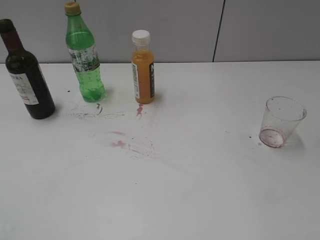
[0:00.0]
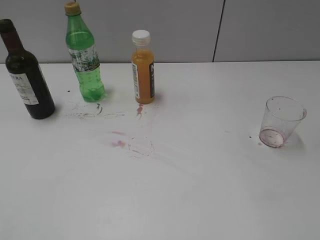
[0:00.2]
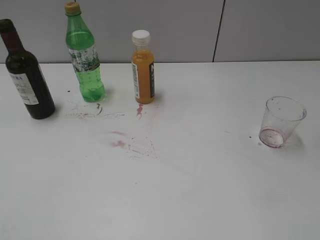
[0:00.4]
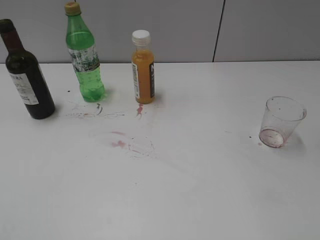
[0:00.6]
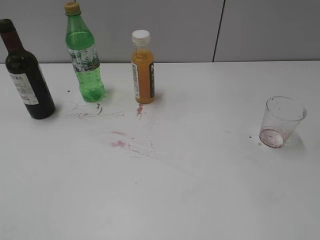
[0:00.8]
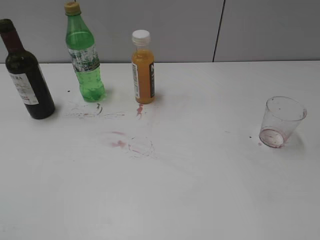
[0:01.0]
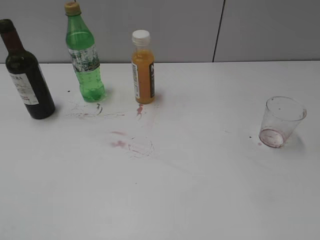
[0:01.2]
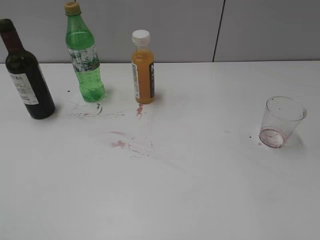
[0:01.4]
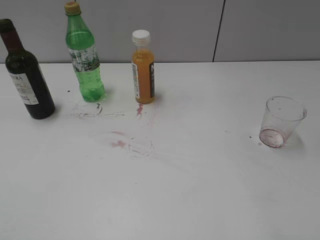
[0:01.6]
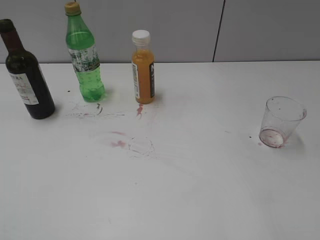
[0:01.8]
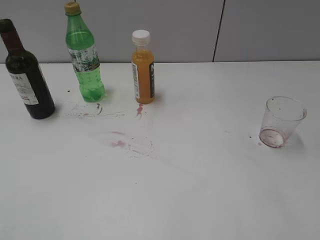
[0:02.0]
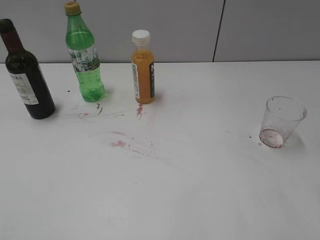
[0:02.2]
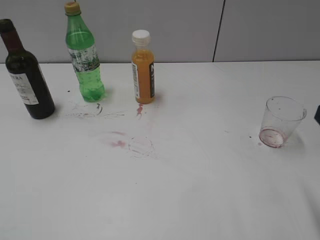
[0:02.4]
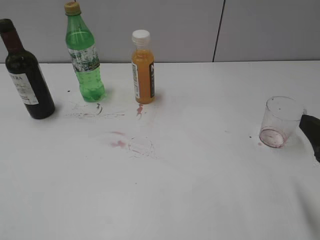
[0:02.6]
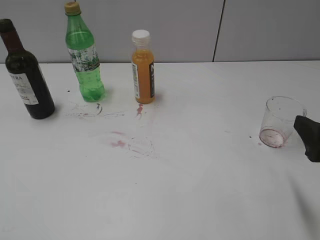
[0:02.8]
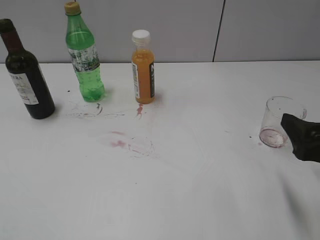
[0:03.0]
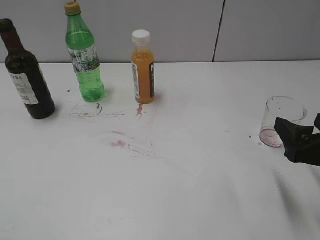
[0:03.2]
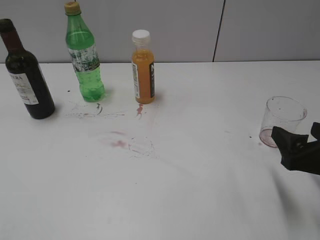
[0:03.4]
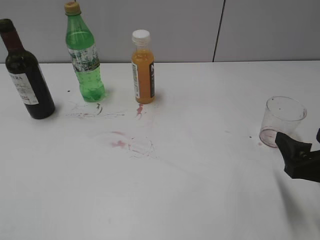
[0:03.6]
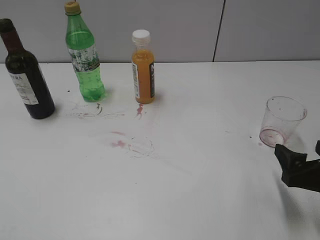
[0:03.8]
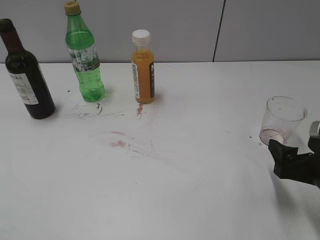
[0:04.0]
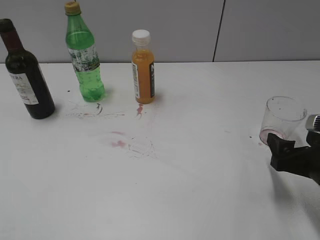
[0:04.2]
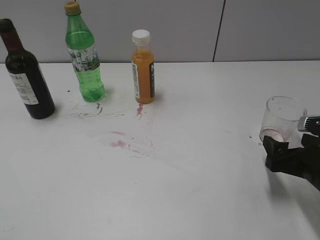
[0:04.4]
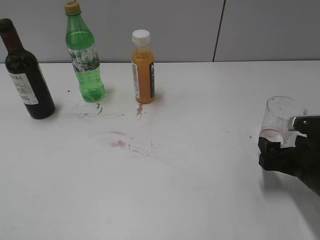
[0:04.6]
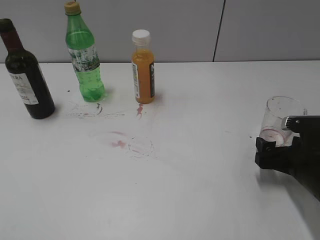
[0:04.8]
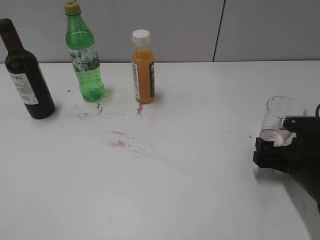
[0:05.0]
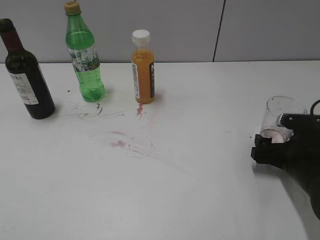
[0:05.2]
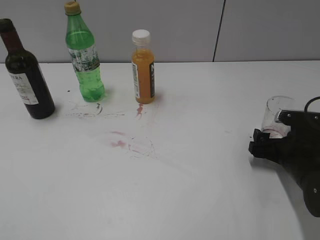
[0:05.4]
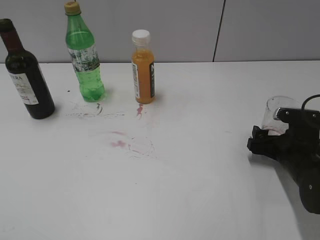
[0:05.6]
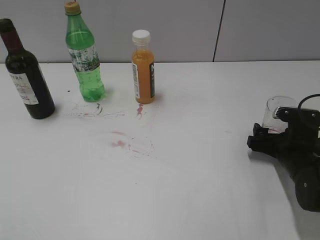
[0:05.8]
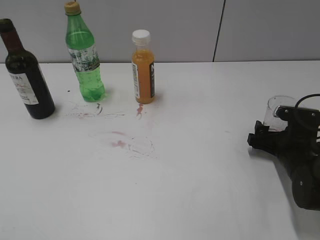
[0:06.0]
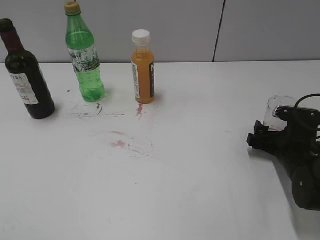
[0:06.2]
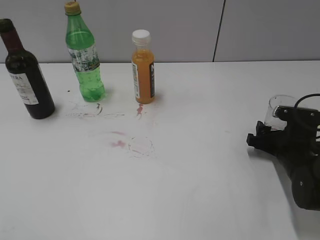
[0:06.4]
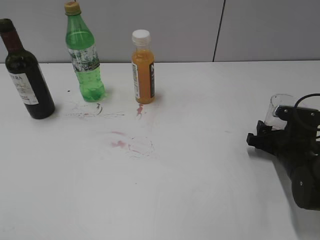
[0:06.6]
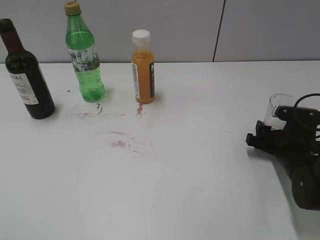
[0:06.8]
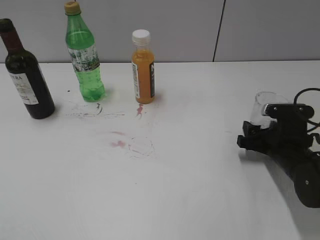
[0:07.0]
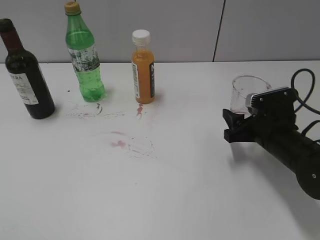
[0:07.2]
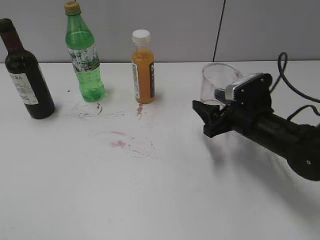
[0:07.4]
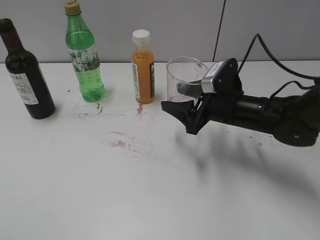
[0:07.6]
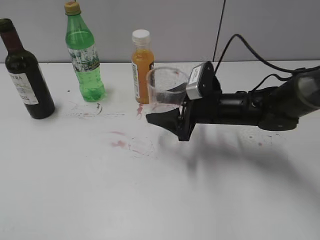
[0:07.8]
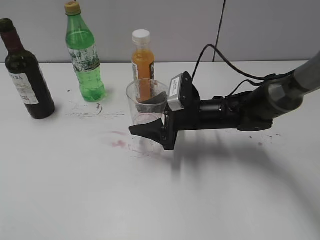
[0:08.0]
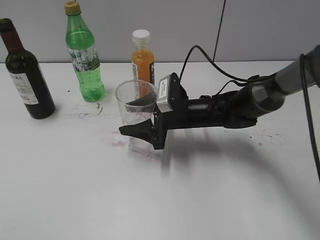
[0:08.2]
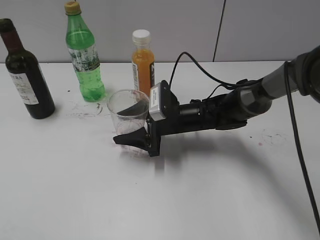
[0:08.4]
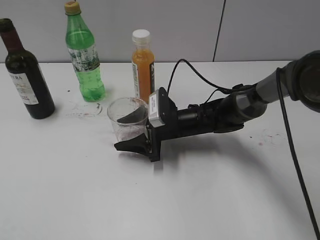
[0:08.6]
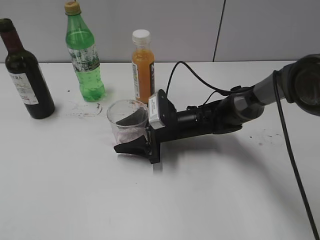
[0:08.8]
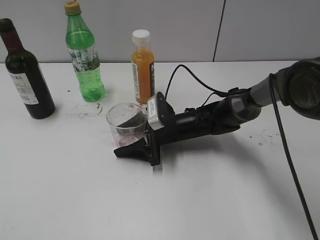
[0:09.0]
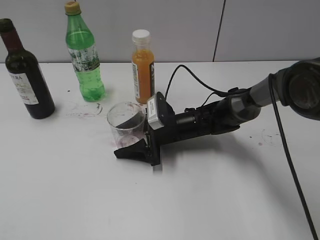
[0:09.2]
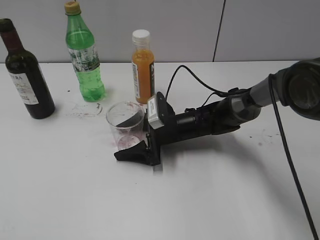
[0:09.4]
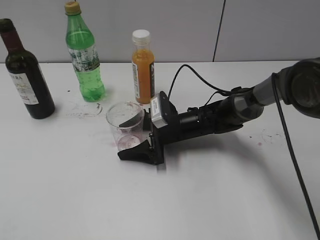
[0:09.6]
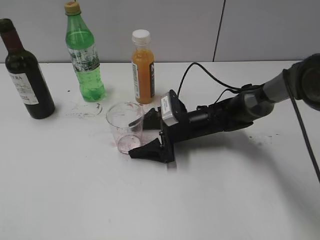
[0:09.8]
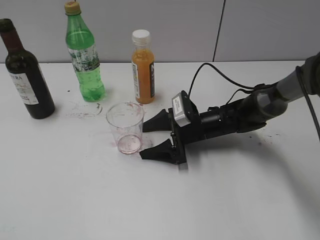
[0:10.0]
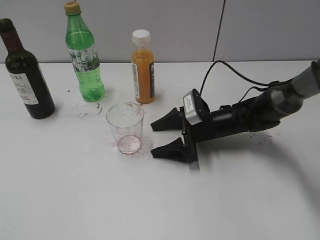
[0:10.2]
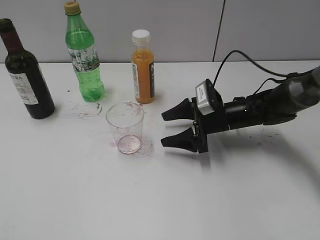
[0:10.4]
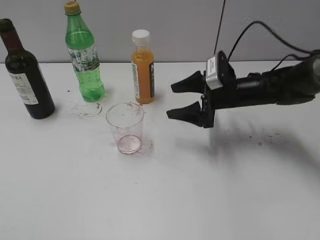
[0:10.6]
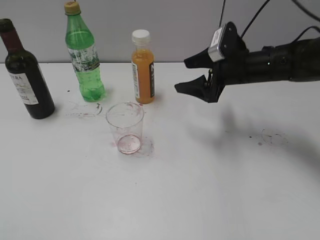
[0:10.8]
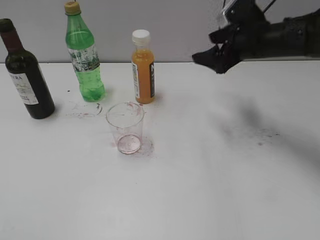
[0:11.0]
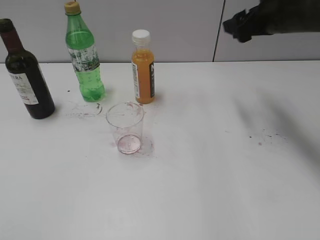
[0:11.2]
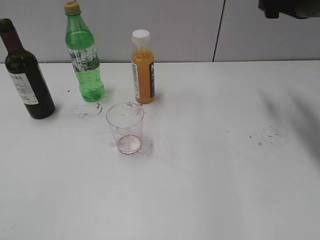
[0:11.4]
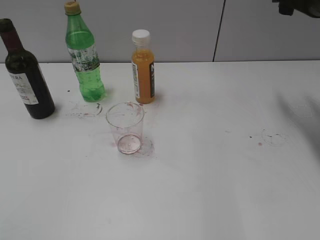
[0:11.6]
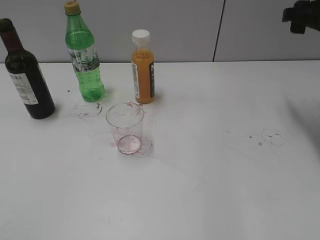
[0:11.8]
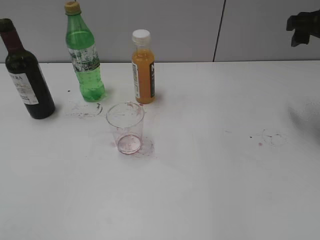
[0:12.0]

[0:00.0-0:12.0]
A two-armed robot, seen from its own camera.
Step, 0:01.0 to 0:06.6: Grasp the transparent cup with right gripper.
Step, 0:07.0 to 0:10.0: Place the transparent cup on the table with right gripper.
0:01.6 to 0:03.0: The right gripper is displaced downward and forward by approximately 15 cm.
0:03.0 to 0:04.4: The right gripper heads downward, covering some 10 cm.
0:04.4 to 0:06.0: The right gripper goes about 10 cm forward and downward.
0:06.0 to 0:07.6: The right gripper travels to the left and upward by about 15 cm, and closes its fingers.
0:07.6 to 0:09.0: The right gripper travels to the left and downward by some 15 cm.
0:09.0 to 0:10.4: The right gripper shifts some 10 cm to the right, and opens its fingers.
0:10.4 to 0:12.0: The right gripper is displaced upward and to the right by approximately 25 cm, and closes up.

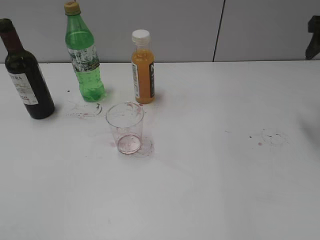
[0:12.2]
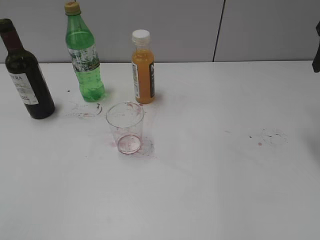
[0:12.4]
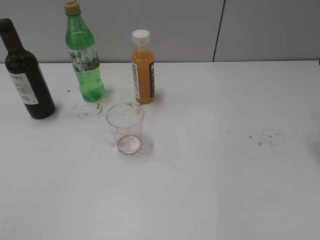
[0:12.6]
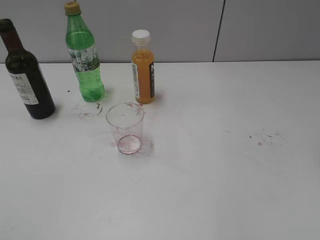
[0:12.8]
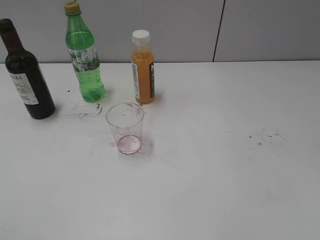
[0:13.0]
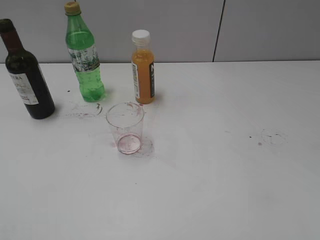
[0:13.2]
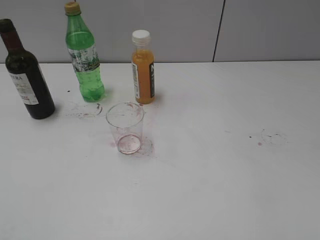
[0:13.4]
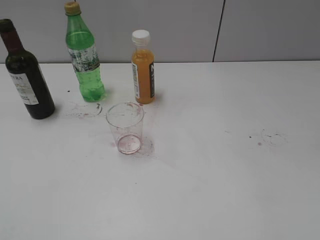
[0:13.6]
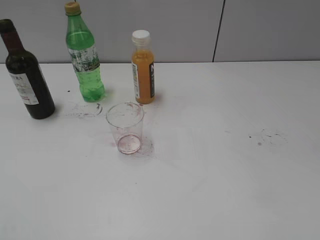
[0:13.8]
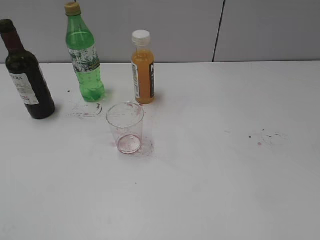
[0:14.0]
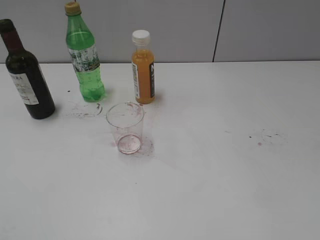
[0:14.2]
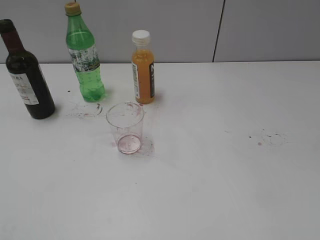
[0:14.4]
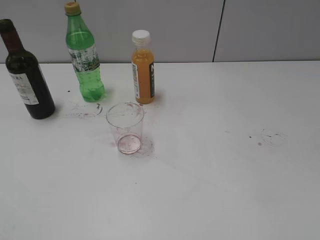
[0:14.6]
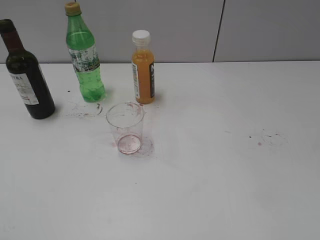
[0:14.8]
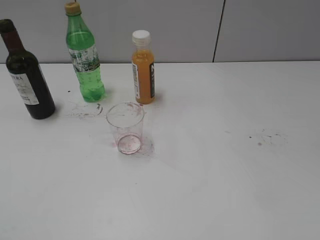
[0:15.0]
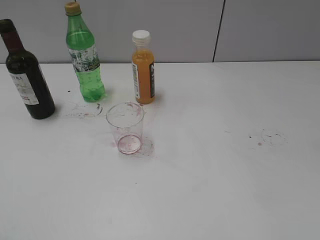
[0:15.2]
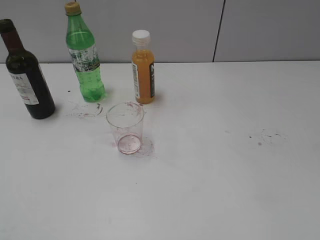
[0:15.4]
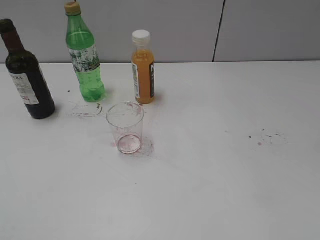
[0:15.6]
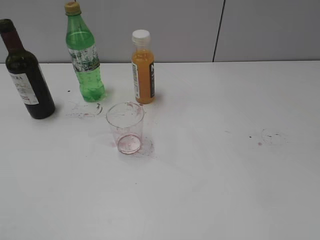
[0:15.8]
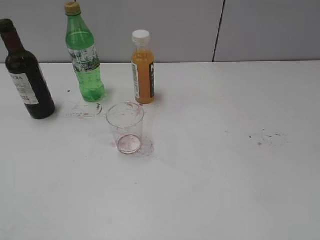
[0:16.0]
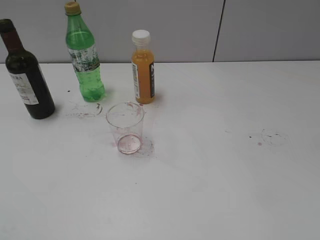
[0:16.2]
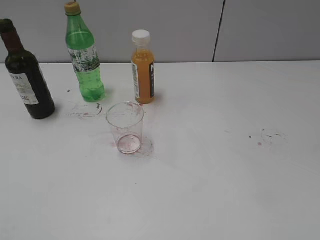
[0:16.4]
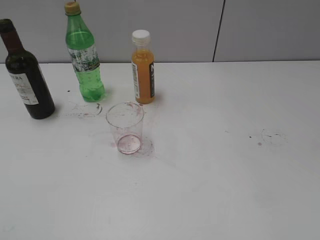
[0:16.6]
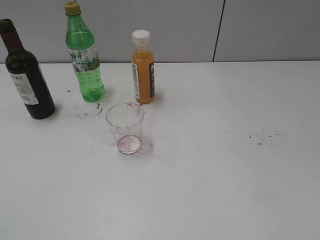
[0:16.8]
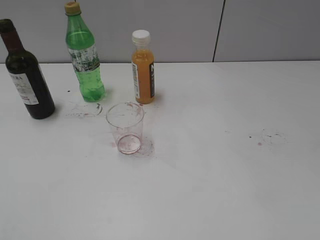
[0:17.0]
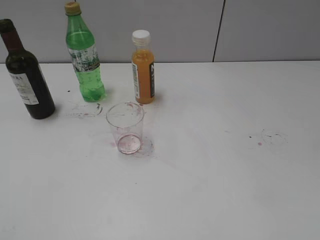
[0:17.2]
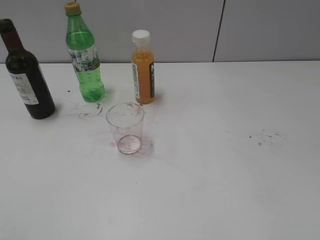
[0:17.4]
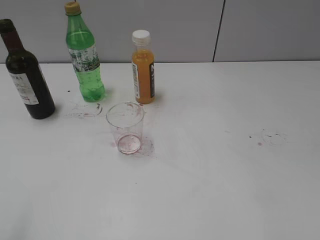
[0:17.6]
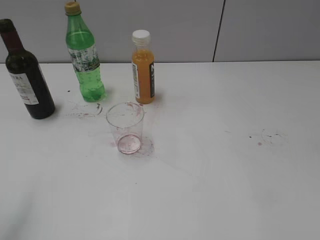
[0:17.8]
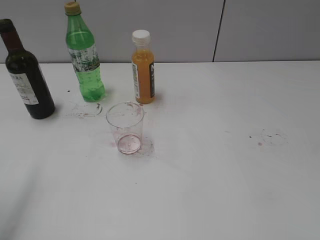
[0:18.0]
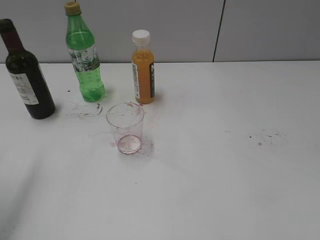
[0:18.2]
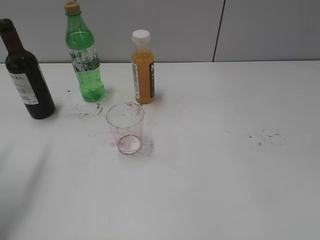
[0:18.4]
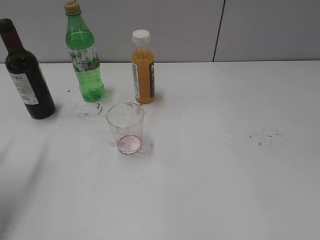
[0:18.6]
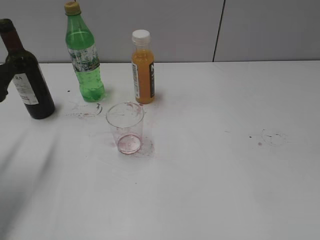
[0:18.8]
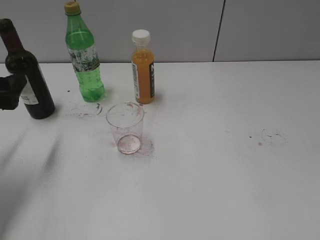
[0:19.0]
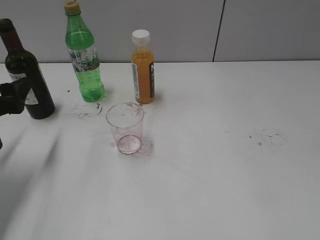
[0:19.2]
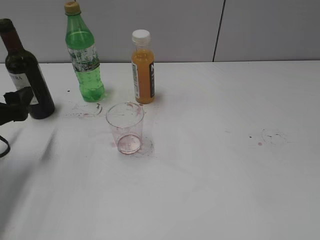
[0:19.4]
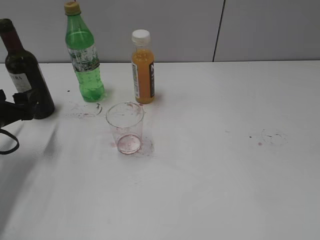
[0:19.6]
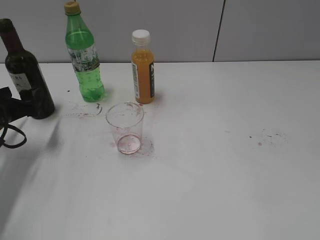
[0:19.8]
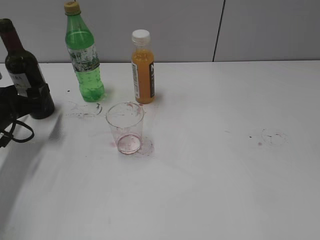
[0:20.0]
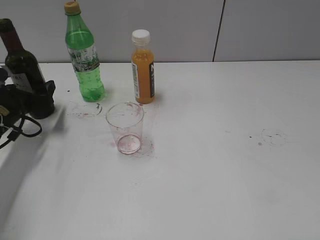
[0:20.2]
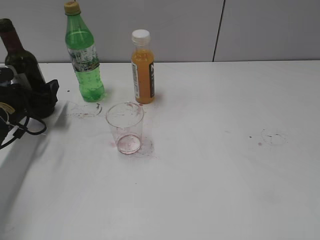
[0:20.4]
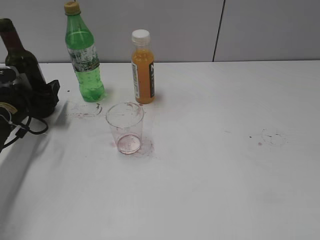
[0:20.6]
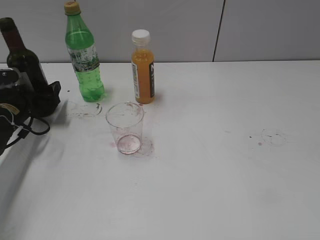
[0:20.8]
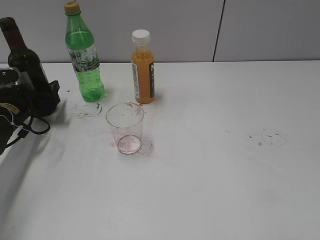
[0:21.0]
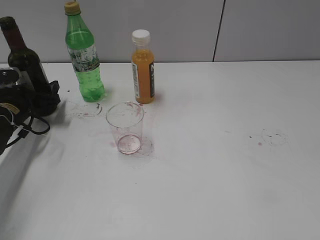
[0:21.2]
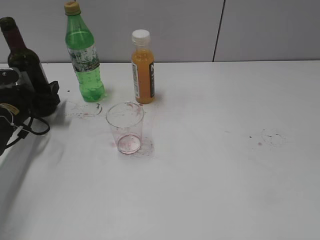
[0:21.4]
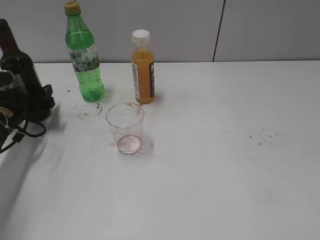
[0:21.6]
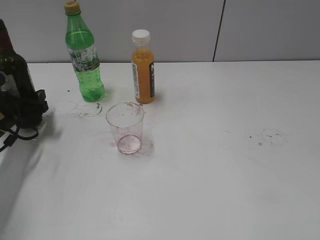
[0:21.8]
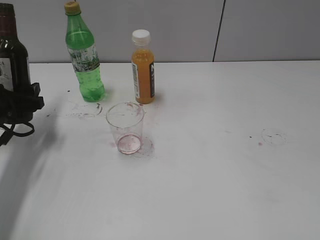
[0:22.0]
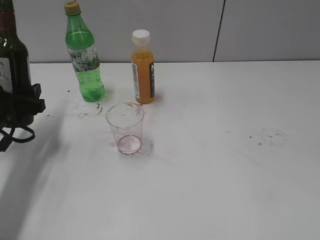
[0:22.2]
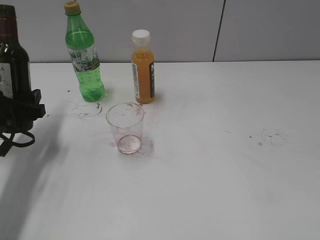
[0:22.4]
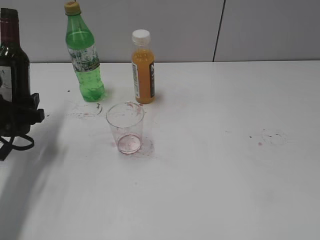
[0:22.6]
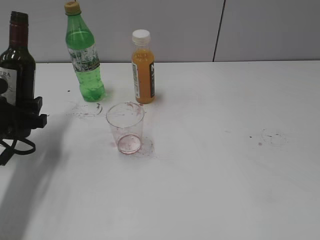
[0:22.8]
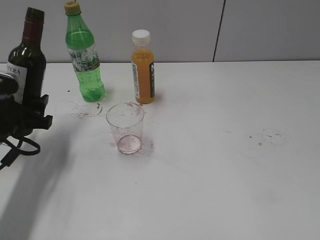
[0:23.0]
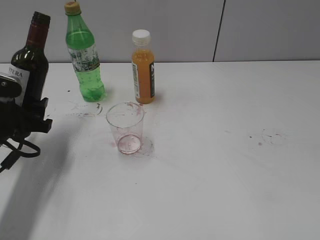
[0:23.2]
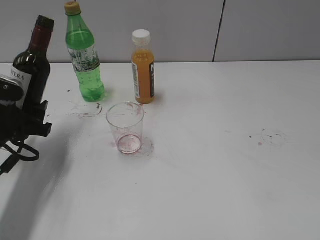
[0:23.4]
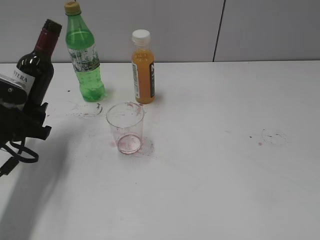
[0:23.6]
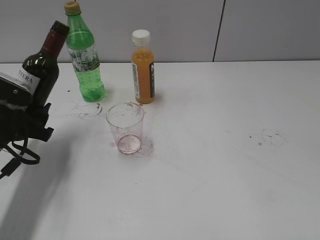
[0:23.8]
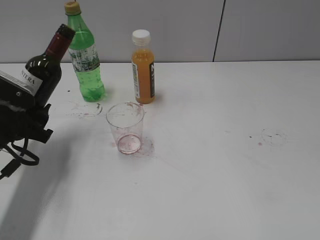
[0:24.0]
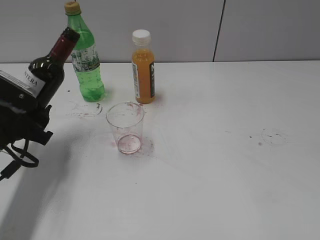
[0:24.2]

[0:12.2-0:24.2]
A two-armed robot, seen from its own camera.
Step, 0:12.2 to 0:21.2: Grasp the bottle with red wine with left gripper.
0:12.2 to 0:13.8: The right gripper goes roughly 30 cm backward.
0:16.6 to 0:18.2: The left gripper heads forward, covering some 20 cm.
0:18.2 to 0:19.8: The left gripper shifts approximately 20 cm downward and forward.
0:19.8 to 0:21.2: The left gripper moves forward, roughly 5 cm.
0:21.2 to 0:22.6: The left gripper shifts some 10 cm backward and upward.
